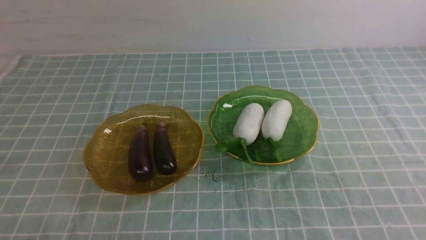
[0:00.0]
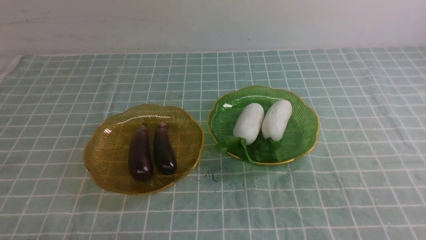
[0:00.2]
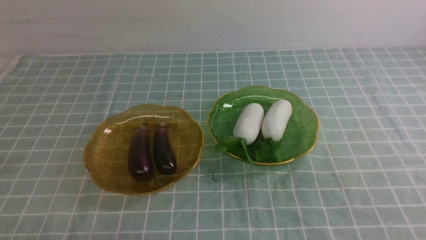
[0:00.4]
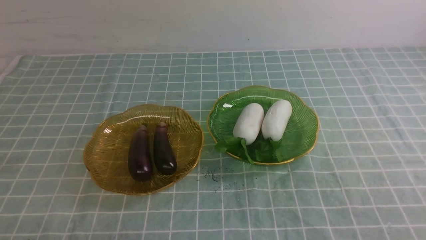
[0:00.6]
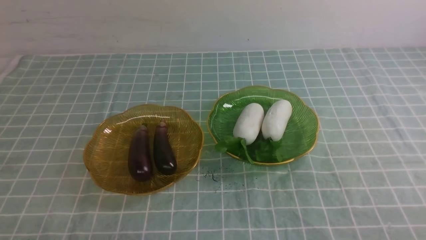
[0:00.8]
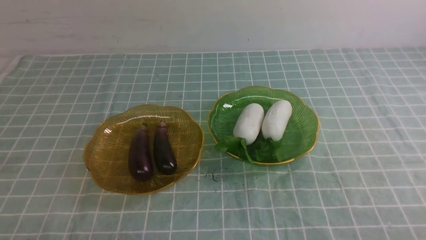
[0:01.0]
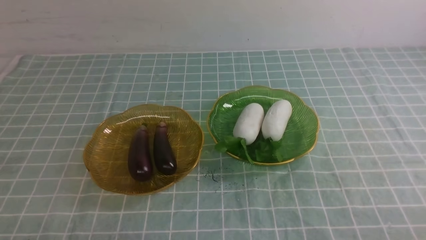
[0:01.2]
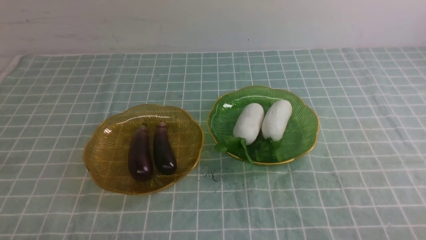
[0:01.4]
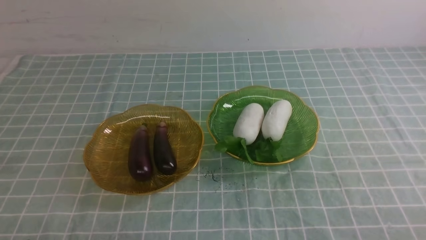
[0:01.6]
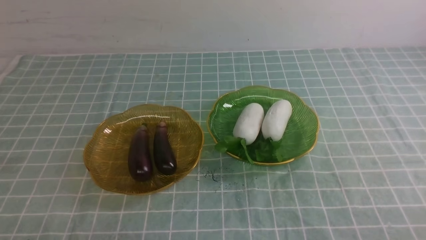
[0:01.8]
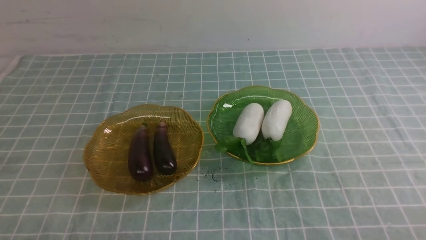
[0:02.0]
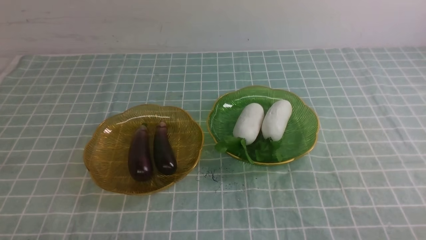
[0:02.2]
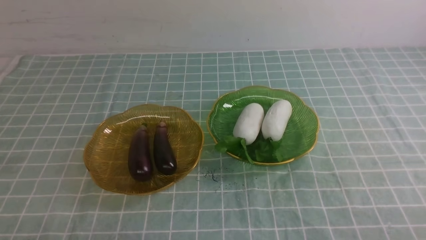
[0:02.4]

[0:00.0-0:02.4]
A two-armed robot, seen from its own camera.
0:01.2 to 0:02.4: Both grippers stay about where they are.
